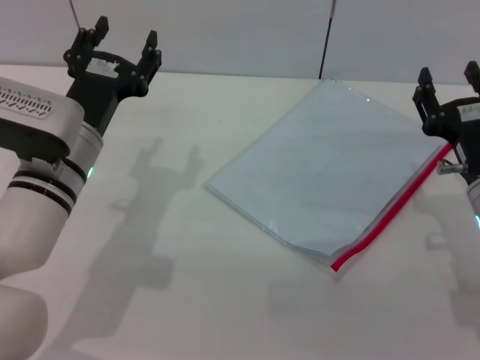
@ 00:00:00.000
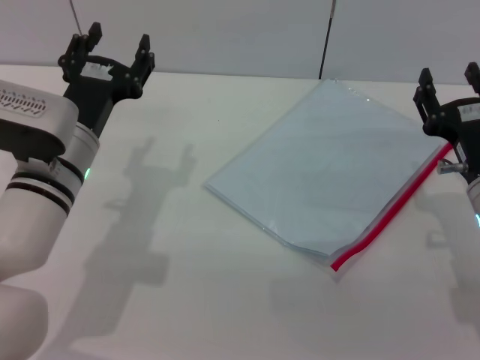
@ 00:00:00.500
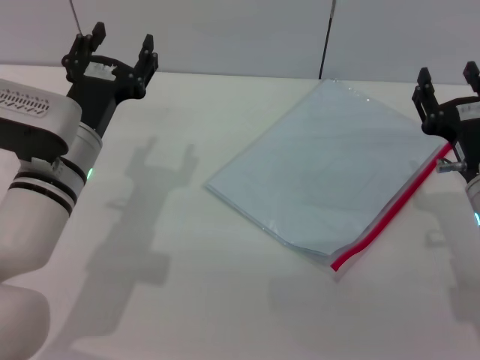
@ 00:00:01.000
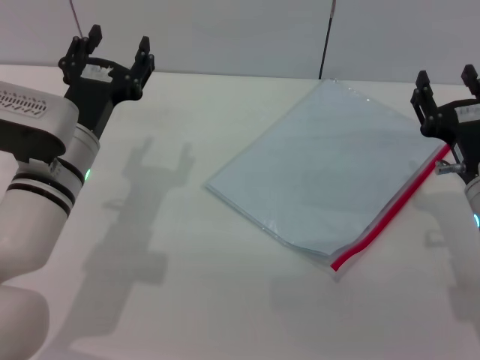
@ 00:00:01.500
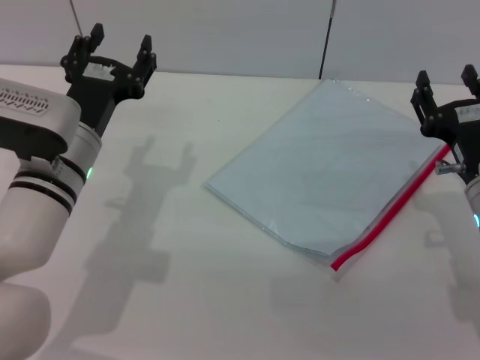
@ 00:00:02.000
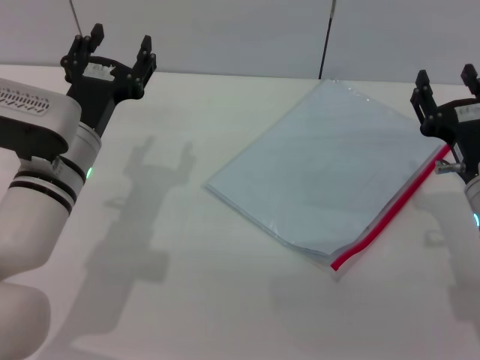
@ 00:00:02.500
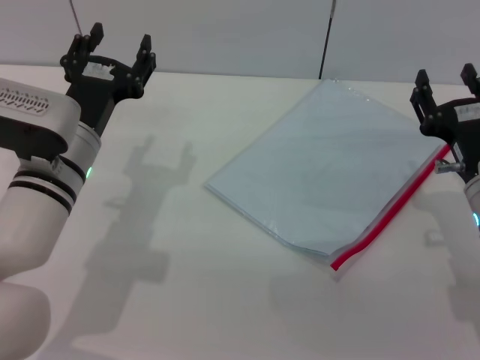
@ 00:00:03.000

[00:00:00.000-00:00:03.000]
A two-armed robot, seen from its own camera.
00:00:00.000 to 00:00:03.000: Neither gripper changes place.

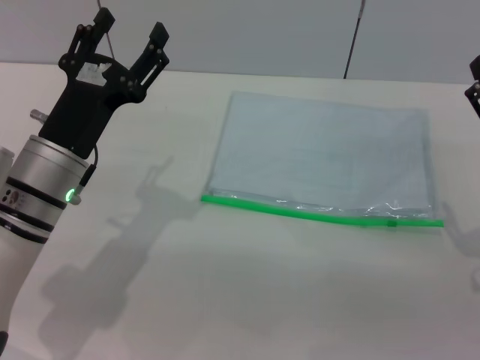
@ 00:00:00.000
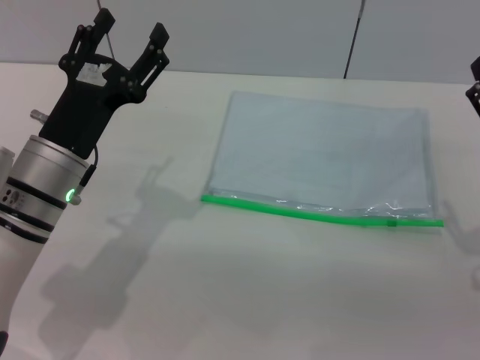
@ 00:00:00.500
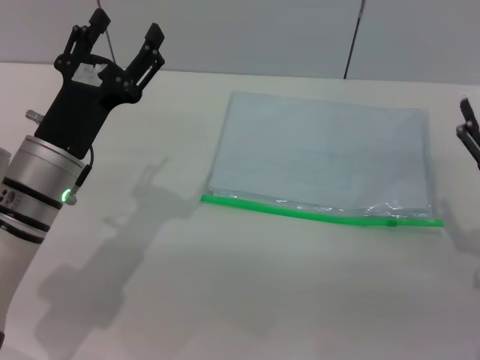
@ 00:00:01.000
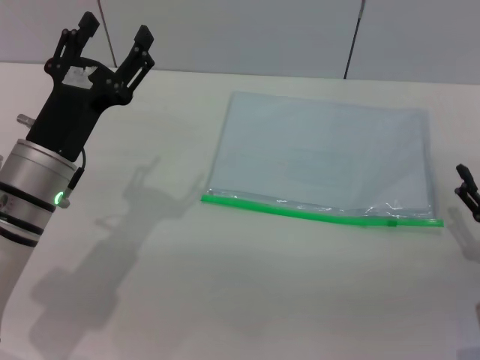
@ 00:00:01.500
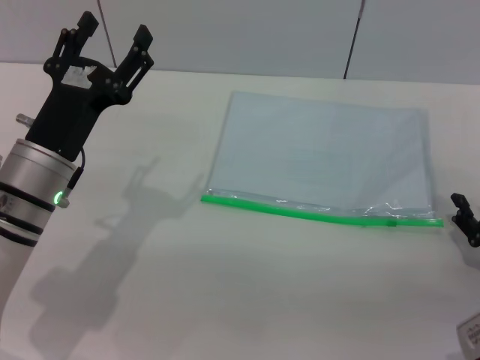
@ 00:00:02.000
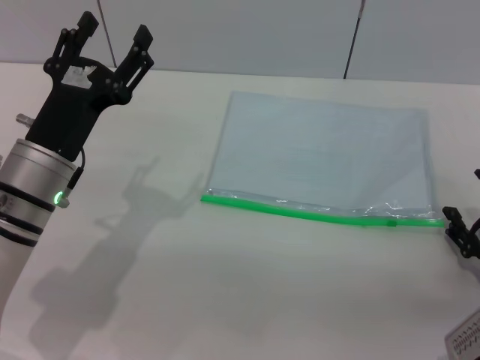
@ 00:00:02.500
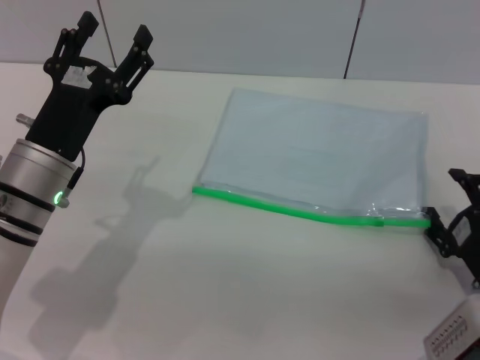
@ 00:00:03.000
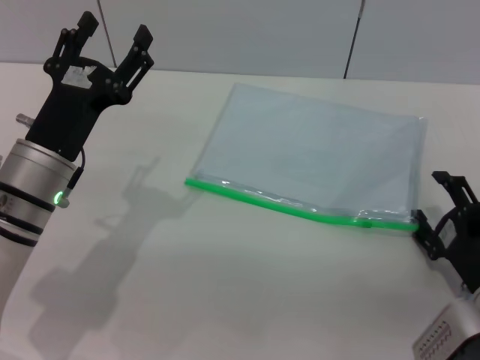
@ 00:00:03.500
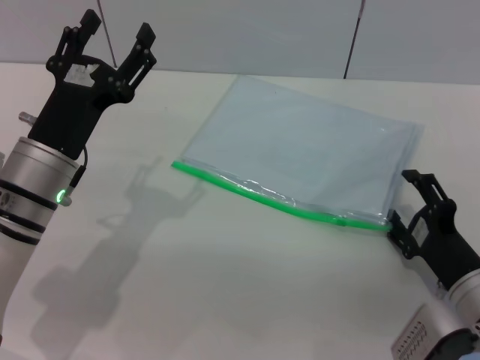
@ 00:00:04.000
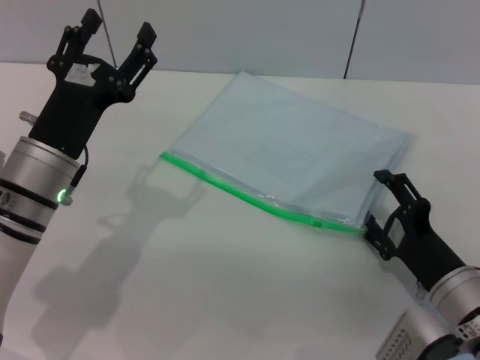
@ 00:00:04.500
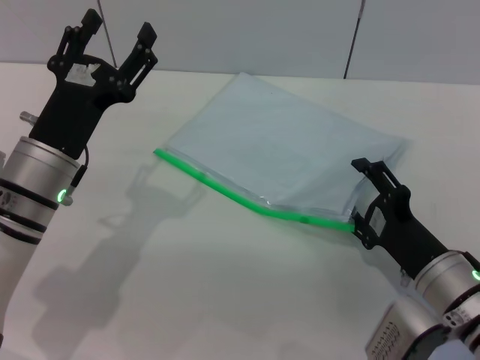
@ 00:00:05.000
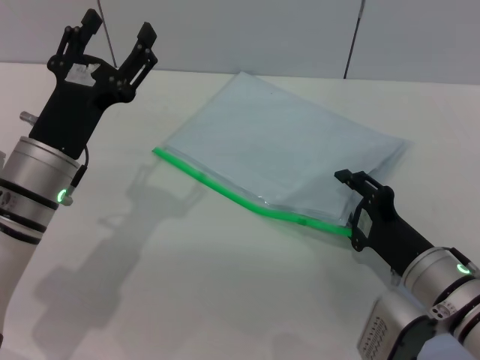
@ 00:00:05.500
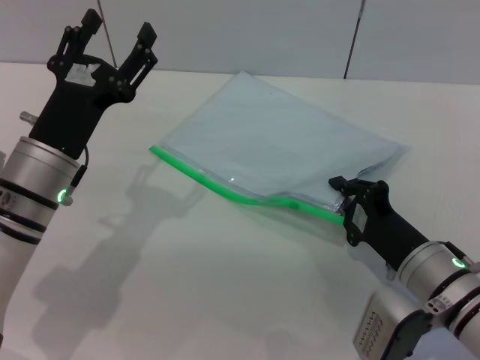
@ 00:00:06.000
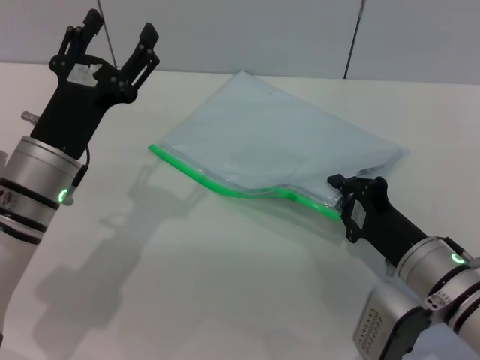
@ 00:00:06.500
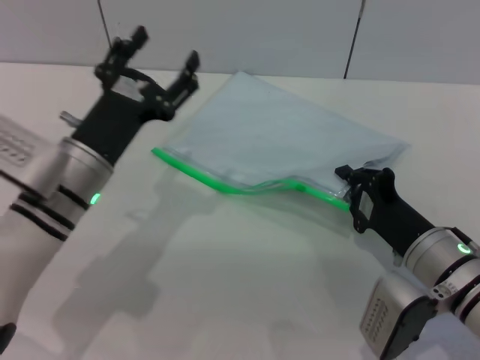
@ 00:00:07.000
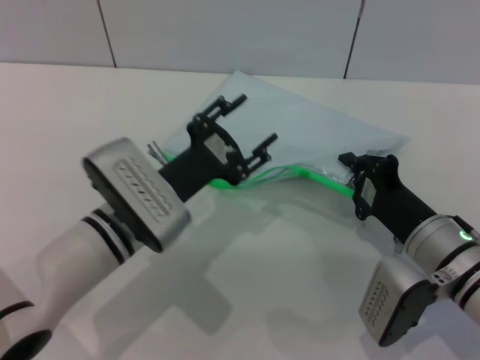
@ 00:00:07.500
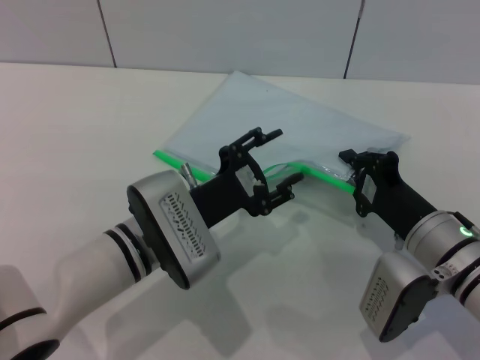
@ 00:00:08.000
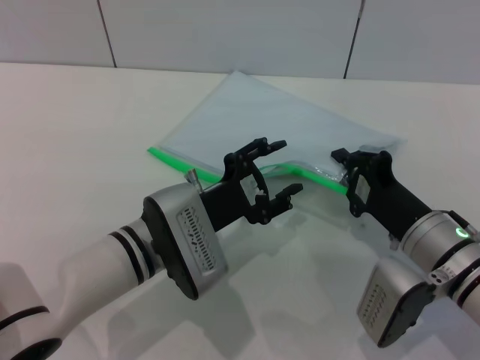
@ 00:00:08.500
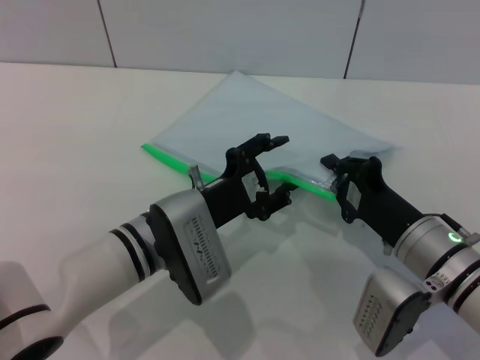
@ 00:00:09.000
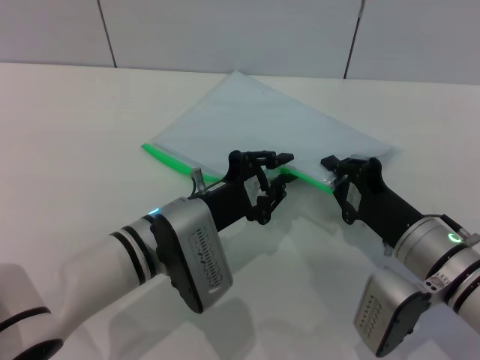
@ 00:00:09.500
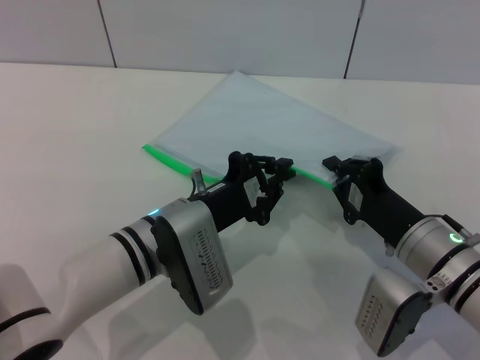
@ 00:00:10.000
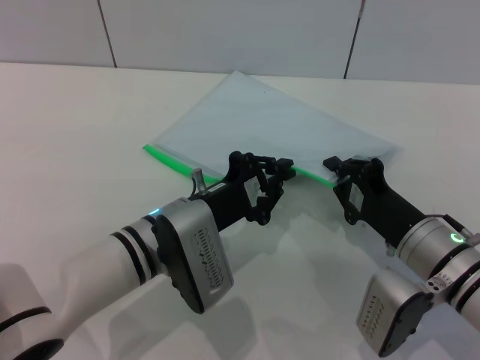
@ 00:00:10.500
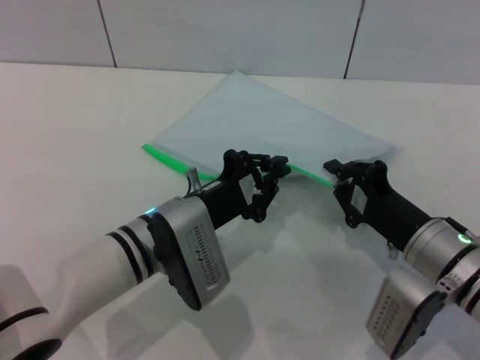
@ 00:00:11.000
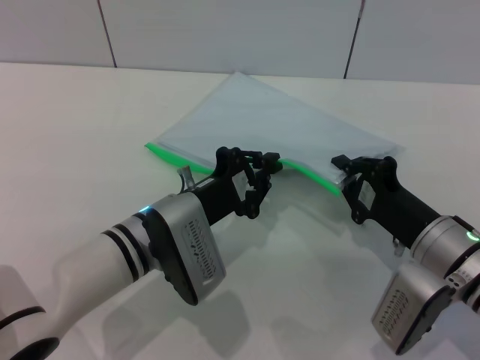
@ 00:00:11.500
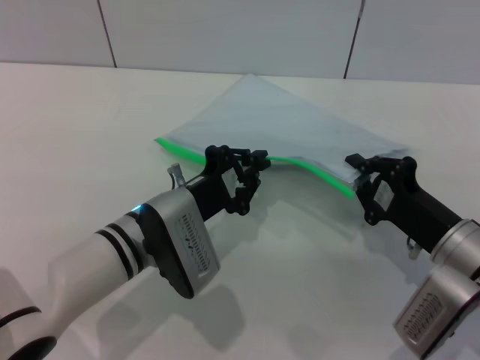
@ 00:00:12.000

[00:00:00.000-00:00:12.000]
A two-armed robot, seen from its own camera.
Step, 00:00:00.000 to 00:00:07.000: Pick up the transparent plastic bag with the right gripper.
00:00:00.000 to 00:00:02.000: The right gripper travels downward by roughly 5 cm.
00:00:02.000 to 00:00:04.000: The right gripper moves to the left, some 5 cm.
00:00:04.000 to 00:00:06.000: The right gripper moves roughly 5 cm, and closes its fingers.
00:00:06.000 to 00:00:08.000: The left gripper heads to the right, covering roughly 10 cm.
00:00:08.000 to 00:00:10.000: The left gripper closes.
00:00:10.000 to 00:00:12.000: There are only small adjustments of the grippers.

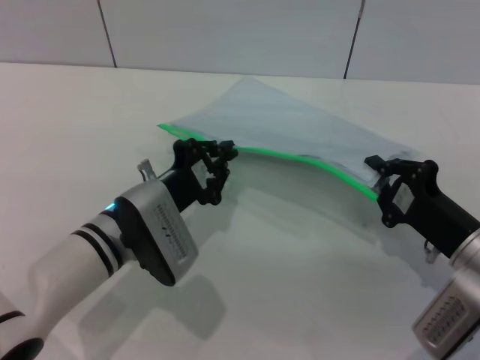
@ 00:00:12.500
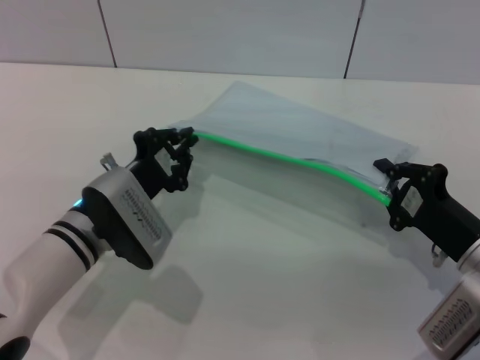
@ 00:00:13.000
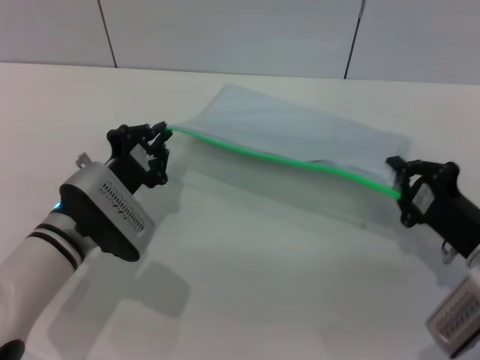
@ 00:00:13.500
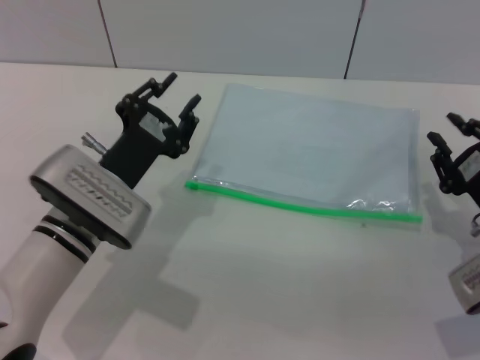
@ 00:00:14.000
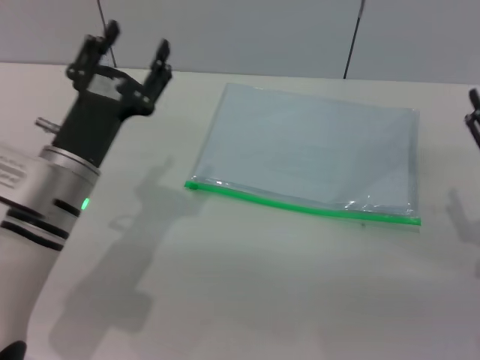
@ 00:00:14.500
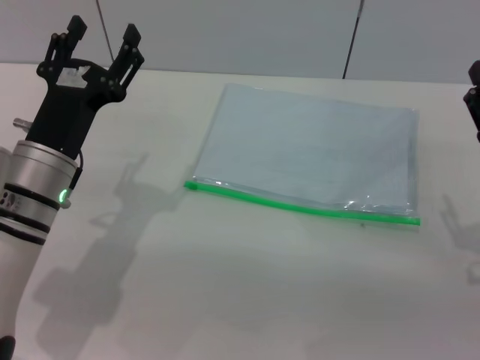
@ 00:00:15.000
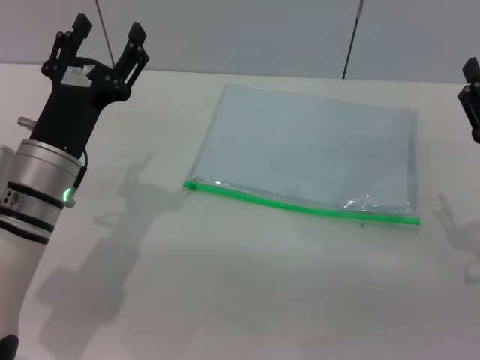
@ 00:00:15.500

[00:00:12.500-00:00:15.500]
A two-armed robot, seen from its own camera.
00:00:14.000 to 00:00:15.500: The right gripper opens up; the left gripper opens.
